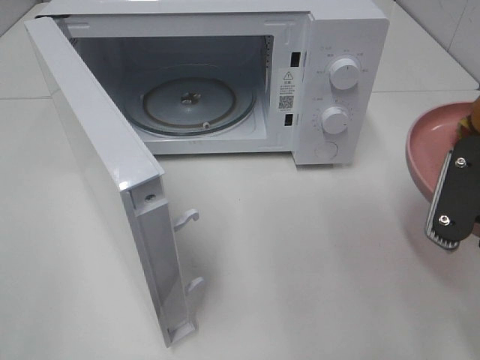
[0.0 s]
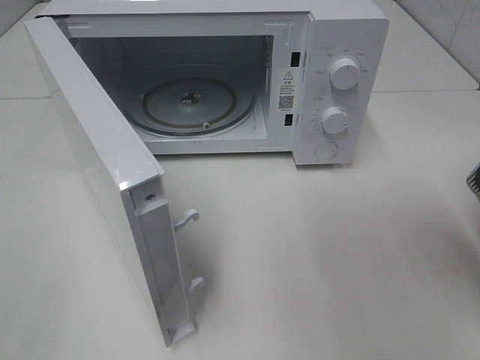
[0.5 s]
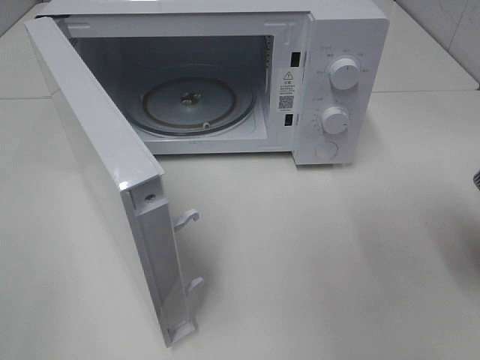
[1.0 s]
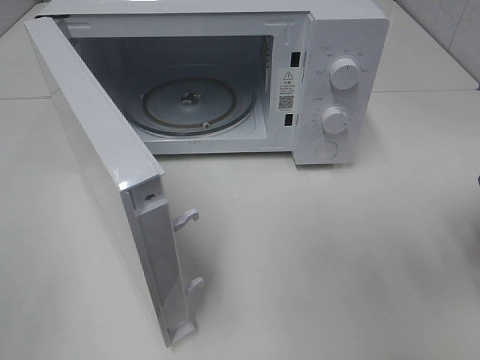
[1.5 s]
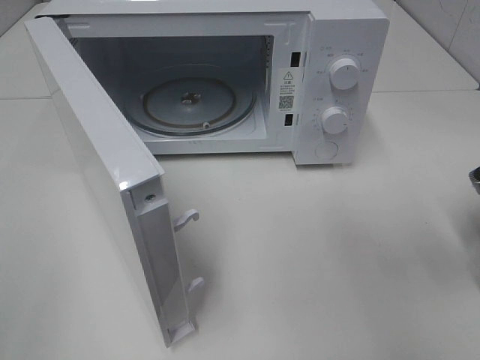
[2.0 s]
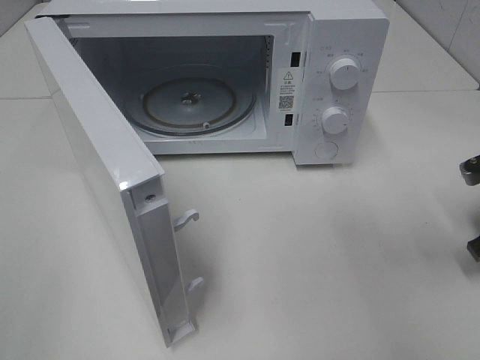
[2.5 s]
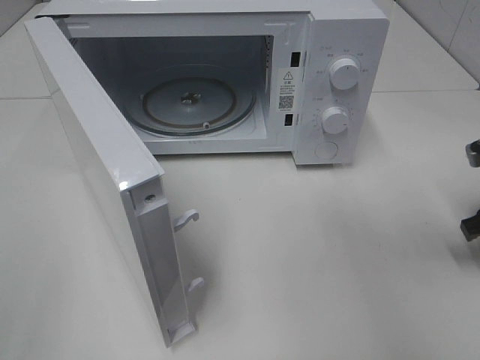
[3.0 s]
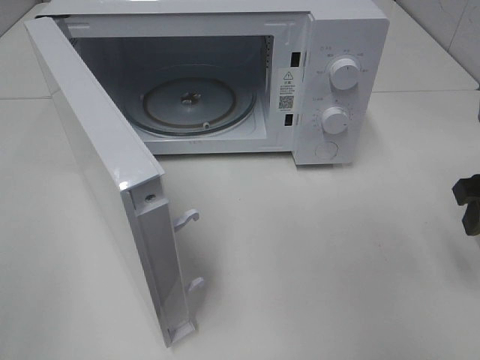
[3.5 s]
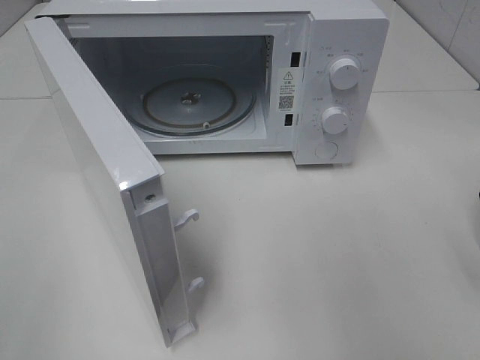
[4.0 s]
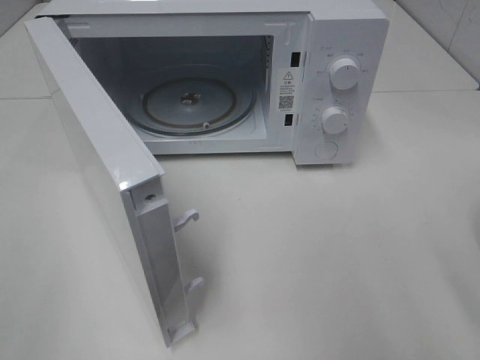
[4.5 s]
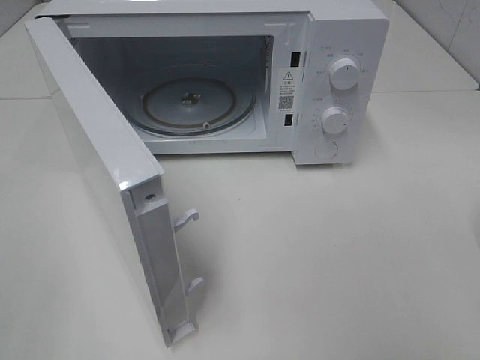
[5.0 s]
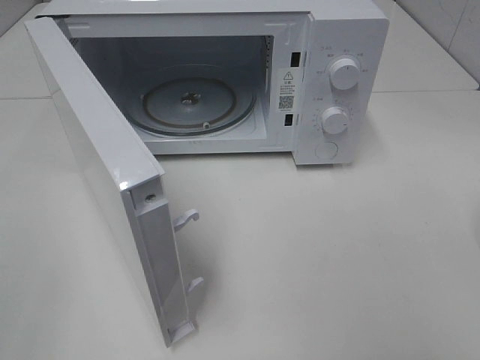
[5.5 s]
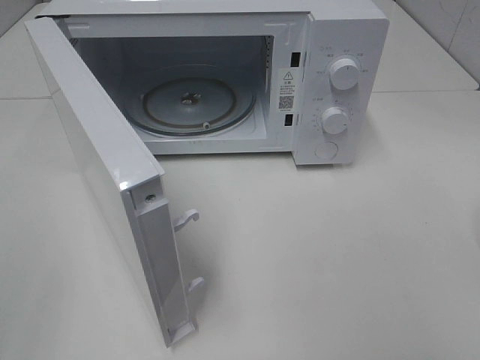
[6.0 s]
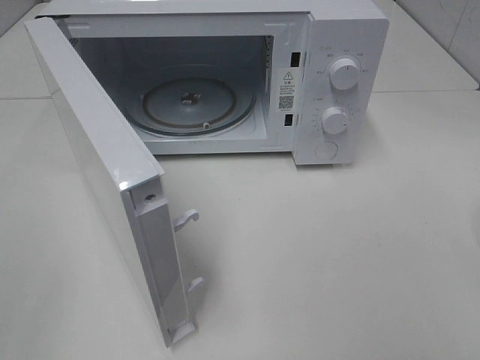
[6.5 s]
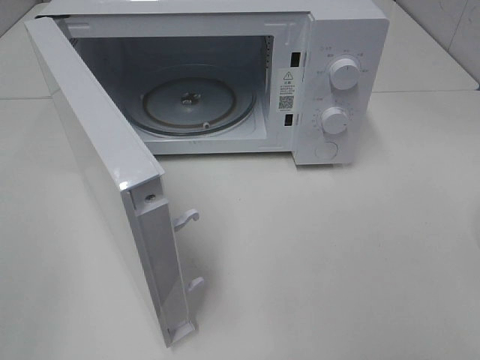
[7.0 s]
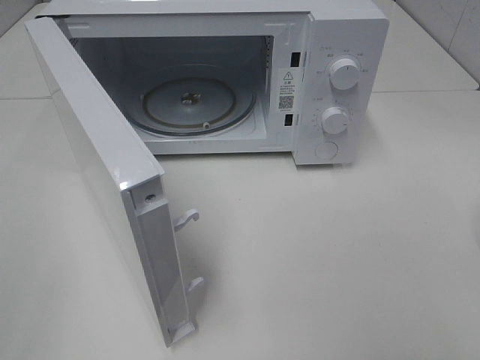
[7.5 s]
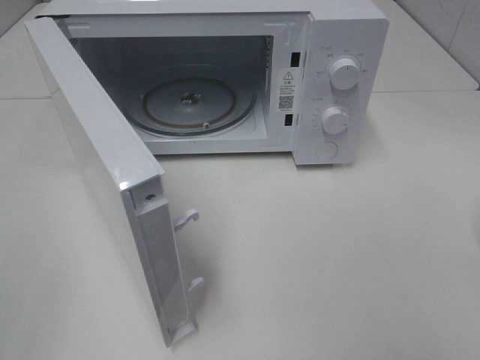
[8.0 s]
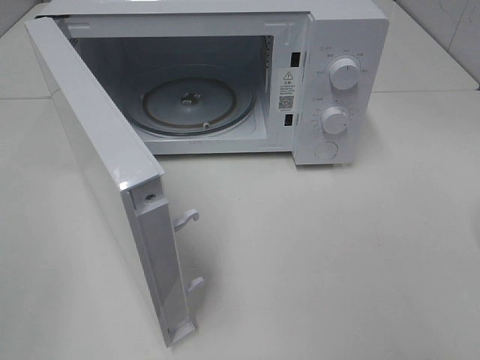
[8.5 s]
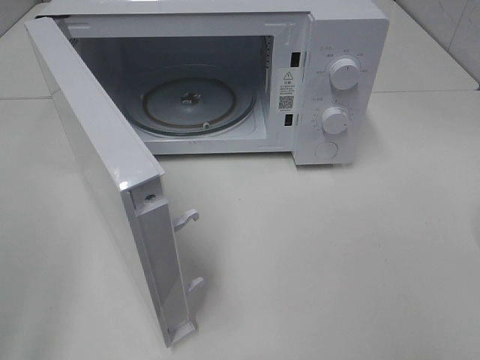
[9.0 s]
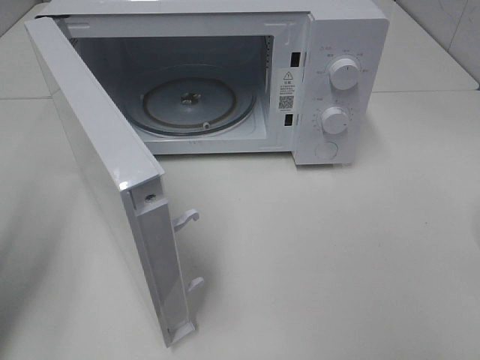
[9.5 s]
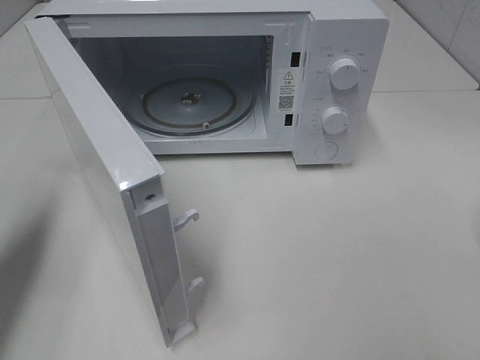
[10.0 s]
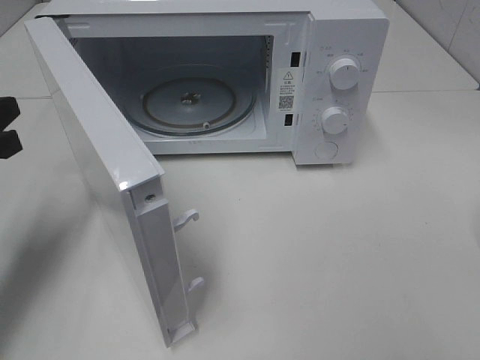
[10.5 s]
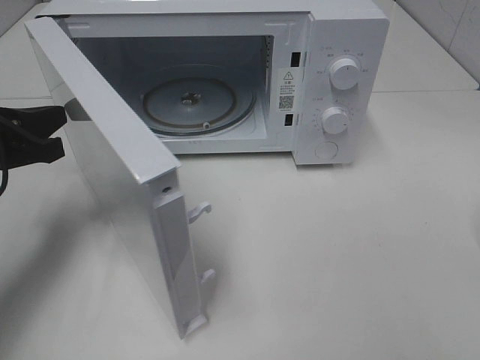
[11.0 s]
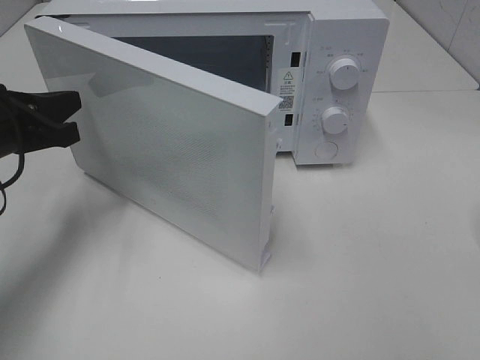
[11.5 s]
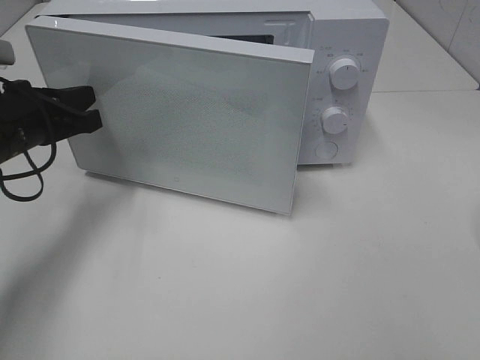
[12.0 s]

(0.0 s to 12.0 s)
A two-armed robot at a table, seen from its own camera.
Task of the whole recording: Heat the burger.
Step, 0.0 s - 2.5 s: Right hand: place the plate on the table.
0.0 s - 2.0 s: The right gripper heads to the right, downward and forward, covering some 15 cm.
8.0 s - 10.0 s: The left gripper shifts some 20 cm forward, and closes.
10.0 s - 12.0 s: The left gripper is displaced forward, to the right and downward by about 15 cm.

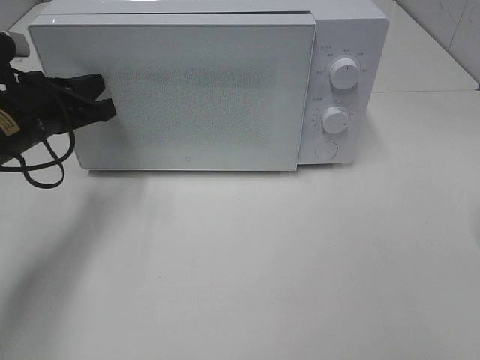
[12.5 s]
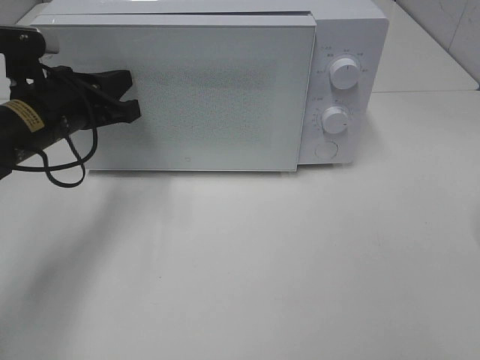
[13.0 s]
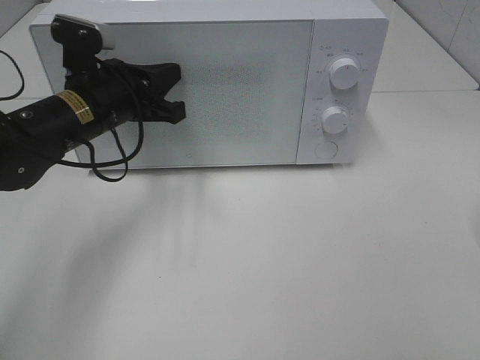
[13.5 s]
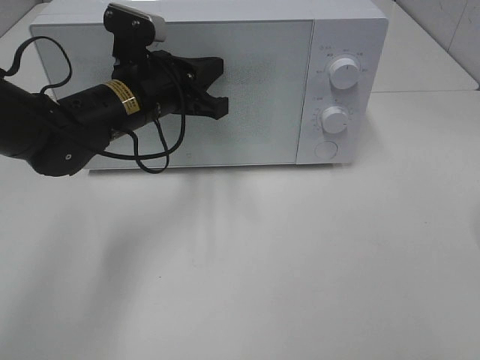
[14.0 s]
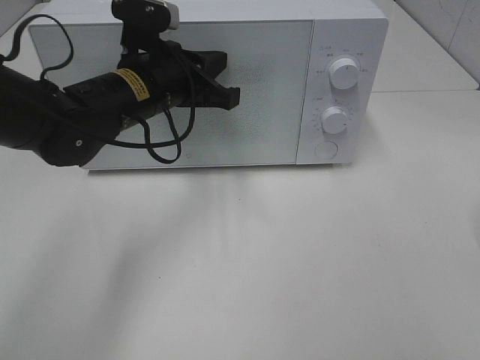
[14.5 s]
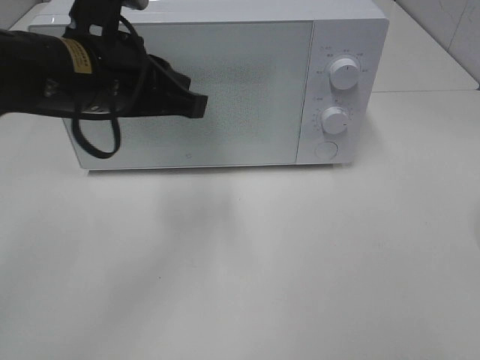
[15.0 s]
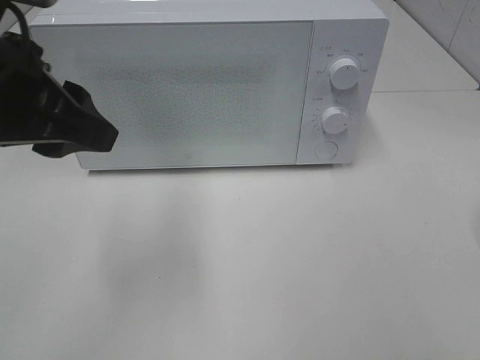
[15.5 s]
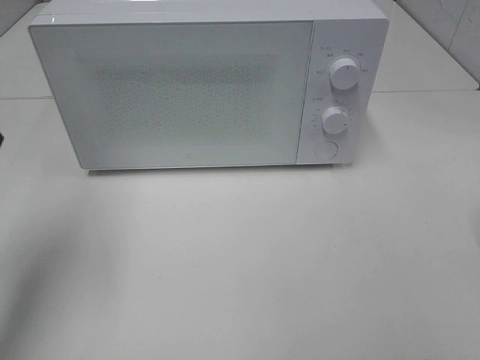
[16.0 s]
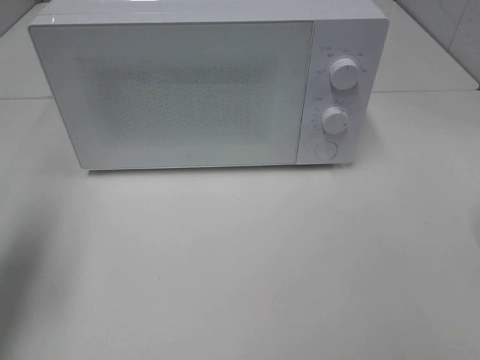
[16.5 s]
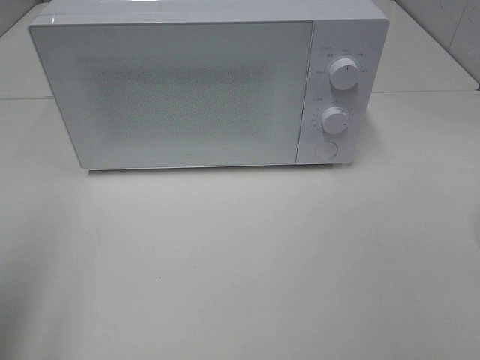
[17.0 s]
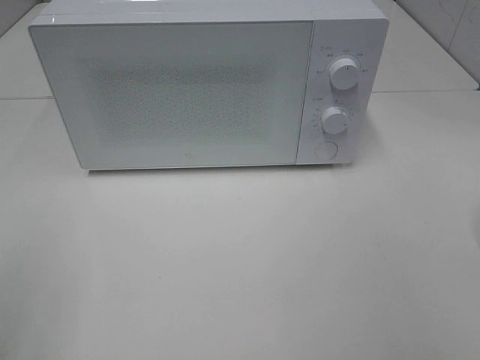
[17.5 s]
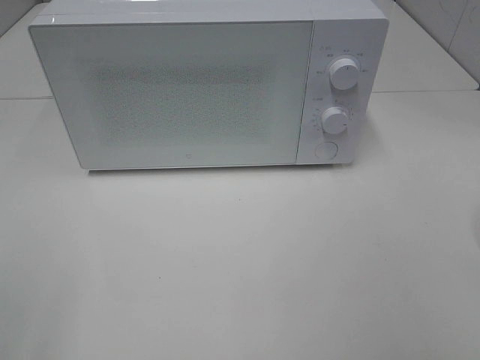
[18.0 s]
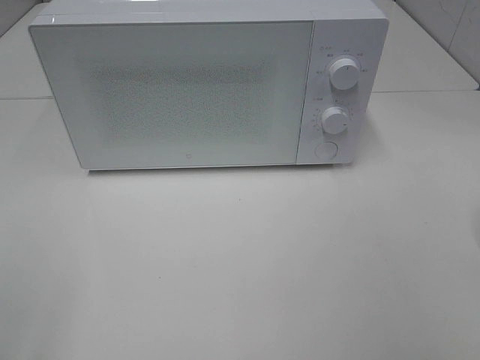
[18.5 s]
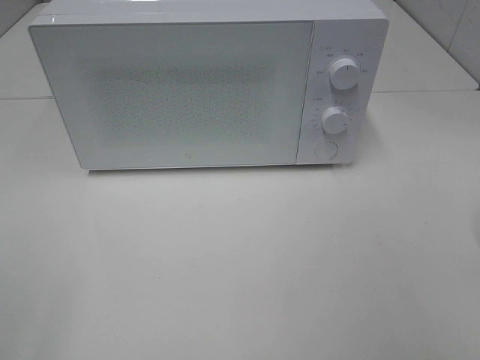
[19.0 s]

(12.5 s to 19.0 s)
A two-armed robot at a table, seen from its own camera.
Task of the whole recording: Heat the burger.
12.5 s - 14.5 s: The left gripper moves to the right, roughly 15 cm.
14.5 s - 17.0 s: The left gripper travels backward, to the left and upward by some 35 cm, and opens its fingers.
17.0 s - 19.0 s: The left gripper is displaced backward by roughly 10 cm.

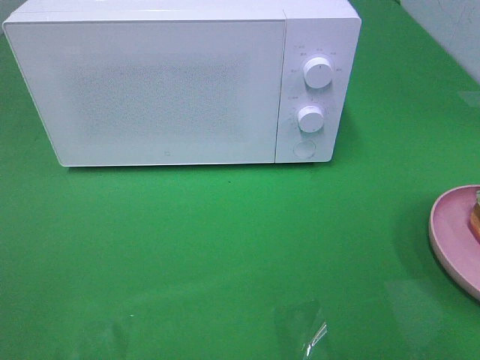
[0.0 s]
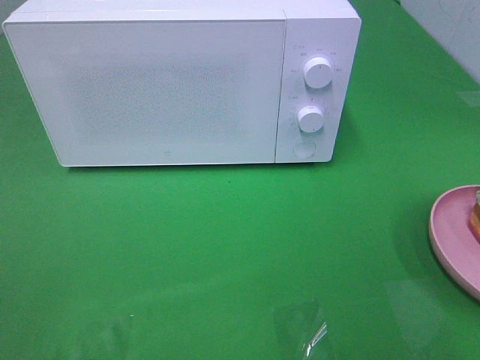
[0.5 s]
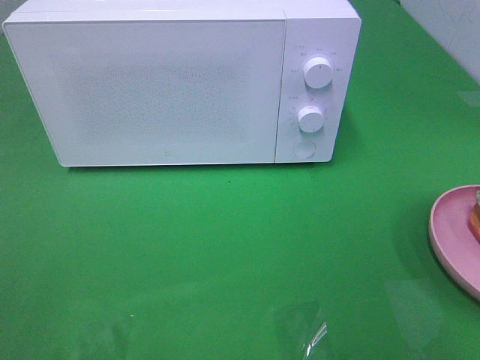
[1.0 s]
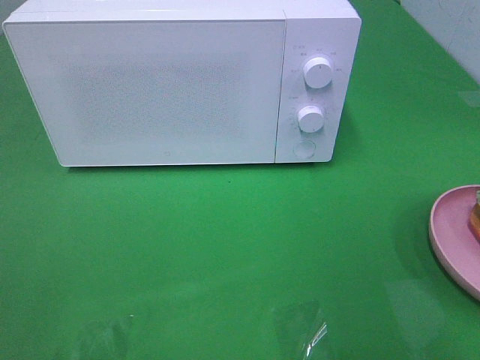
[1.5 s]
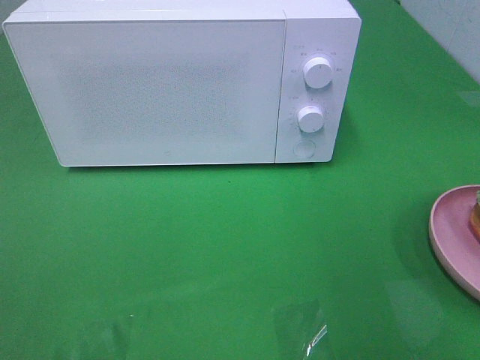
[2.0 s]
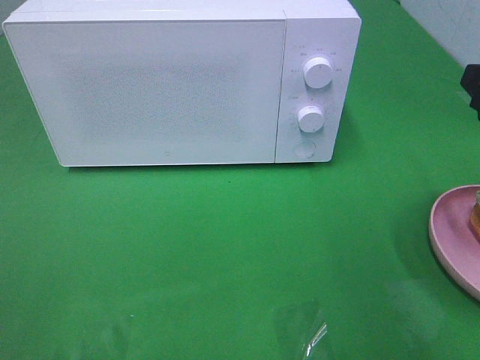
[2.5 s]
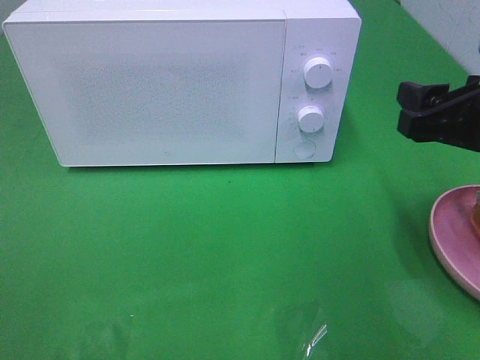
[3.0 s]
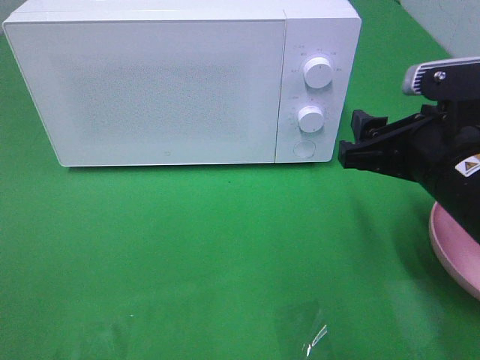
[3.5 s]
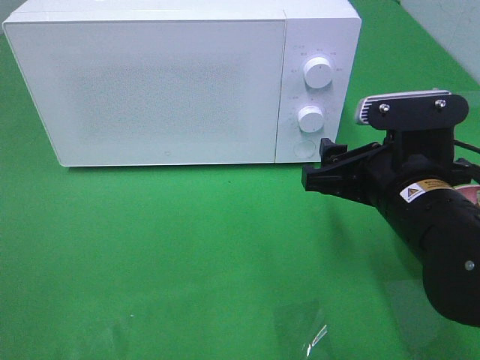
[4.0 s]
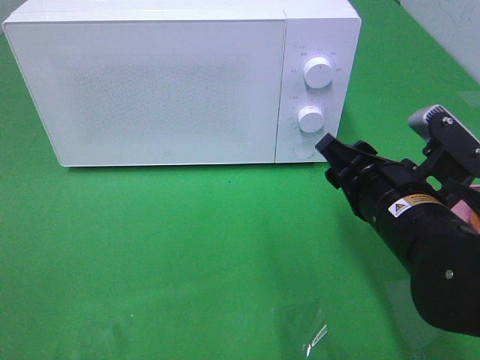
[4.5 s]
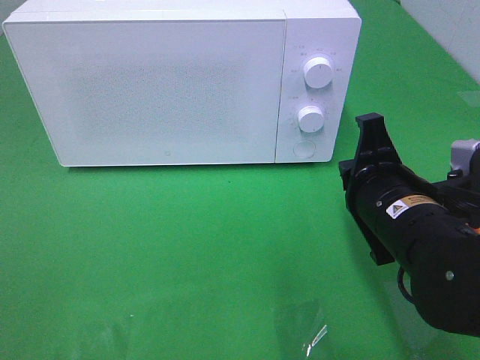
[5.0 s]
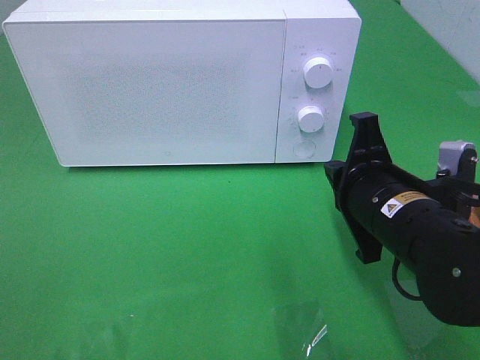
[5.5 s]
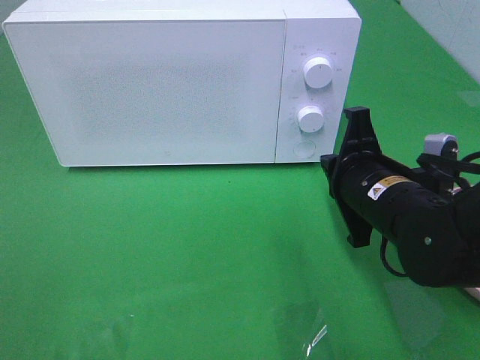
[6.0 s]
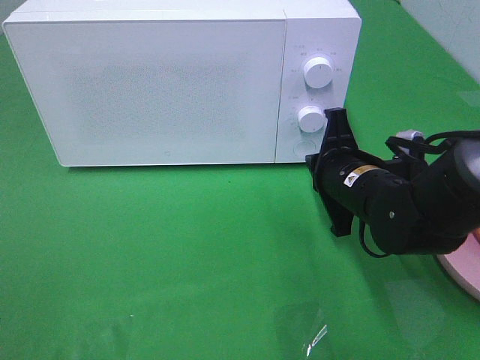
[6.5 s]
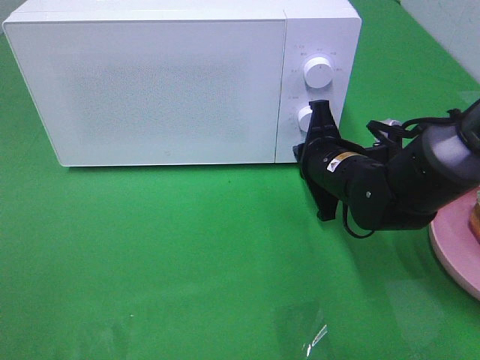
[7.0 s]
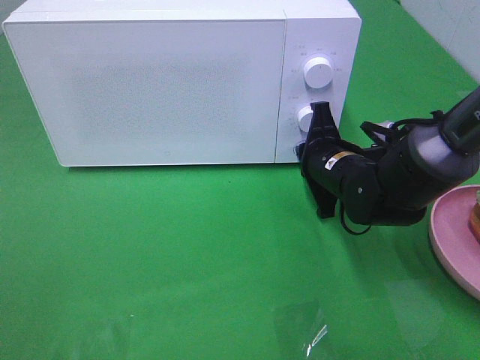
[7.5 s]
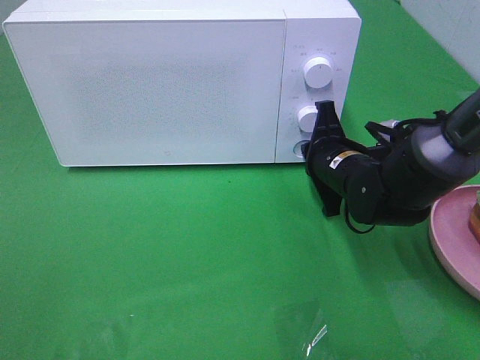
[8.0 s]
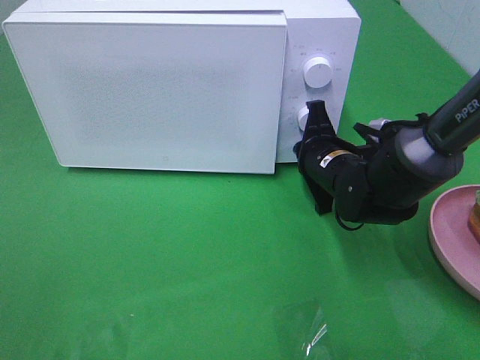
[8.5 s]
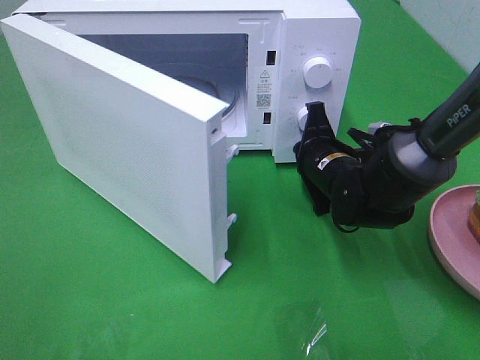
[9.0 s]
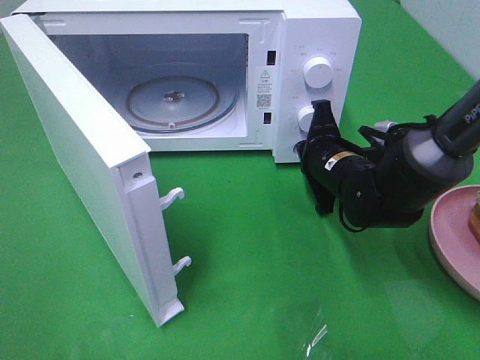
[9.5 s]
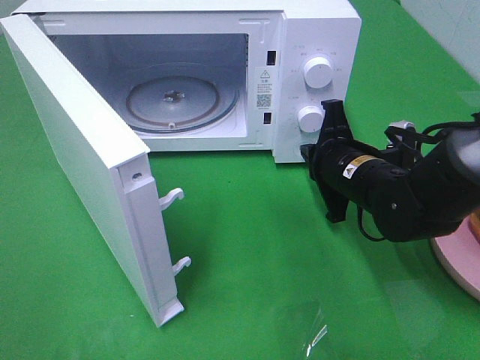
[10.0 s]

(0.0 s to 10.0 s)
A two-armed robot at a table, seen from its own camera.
Task of the whole recording: Heat the burger.
2.0 s - 4.0 s: The right gripper travels downward and to the left by some 20 cm.
4.0 s - 6.0 s: The right gripper shifts by approximately 5 cm, and closes up.
6.0 s - 8.0 s: The right gripper moves forward, approximately 10 cm.
